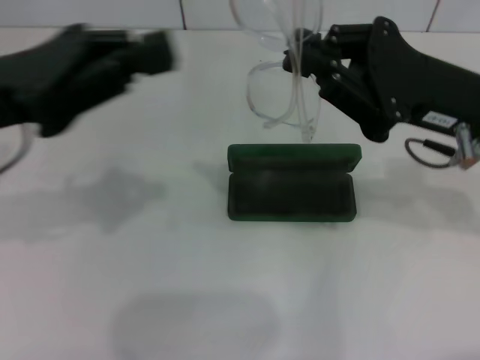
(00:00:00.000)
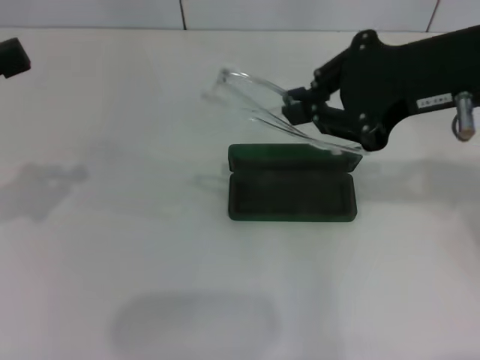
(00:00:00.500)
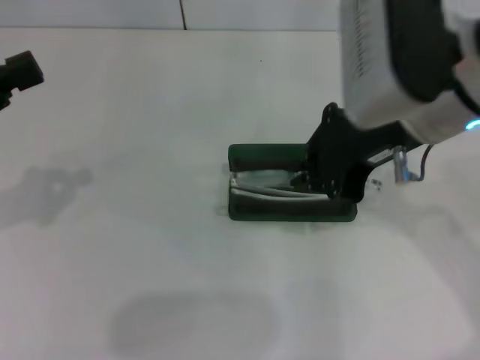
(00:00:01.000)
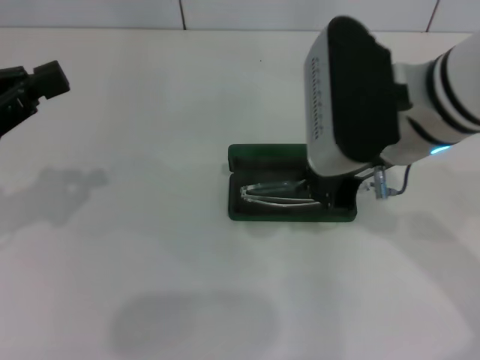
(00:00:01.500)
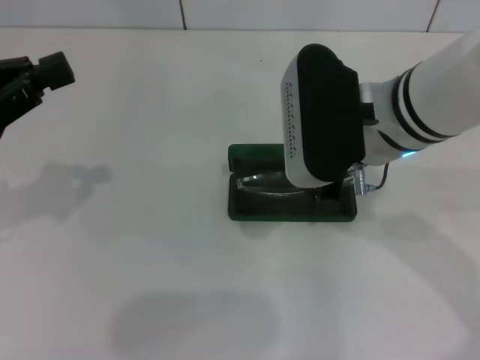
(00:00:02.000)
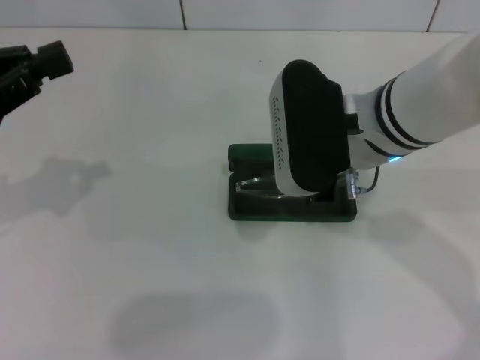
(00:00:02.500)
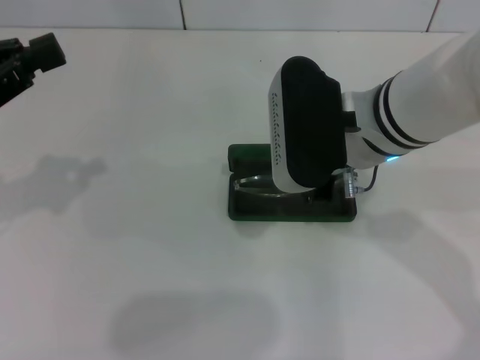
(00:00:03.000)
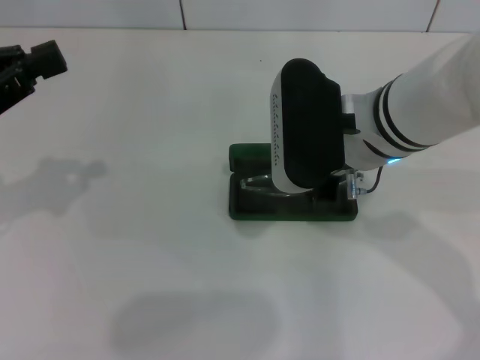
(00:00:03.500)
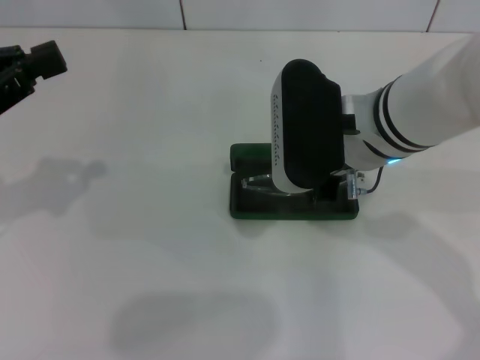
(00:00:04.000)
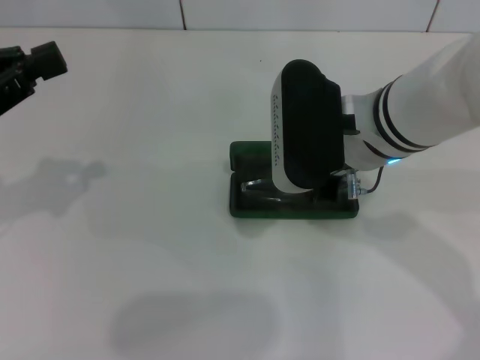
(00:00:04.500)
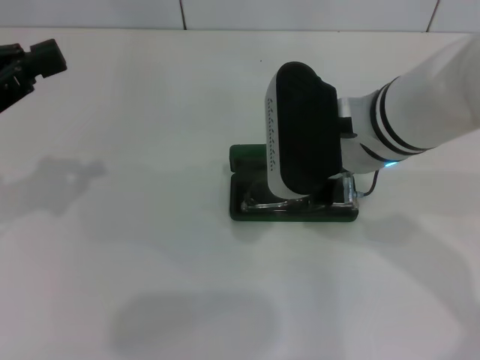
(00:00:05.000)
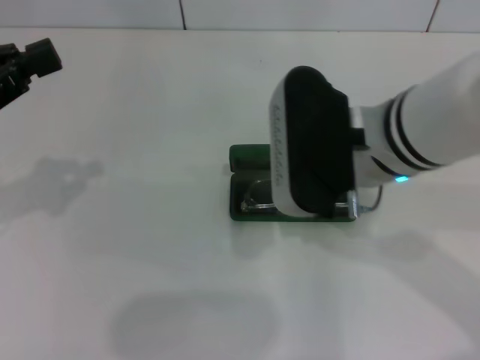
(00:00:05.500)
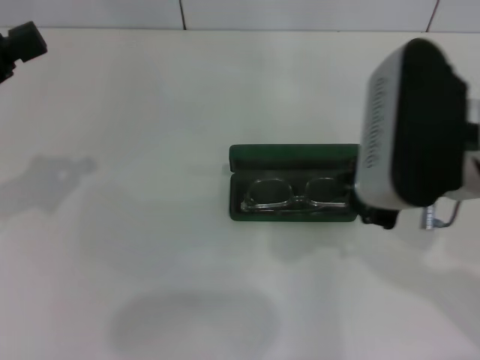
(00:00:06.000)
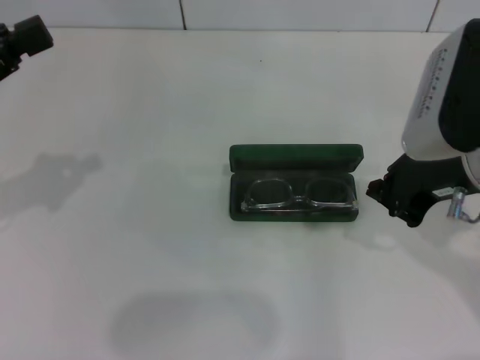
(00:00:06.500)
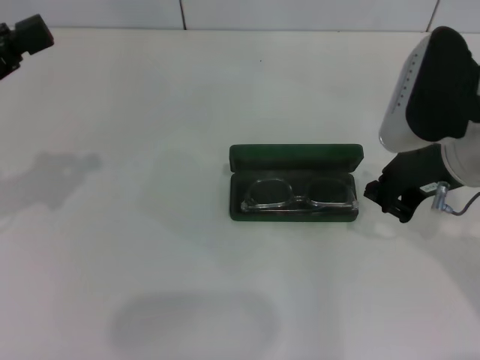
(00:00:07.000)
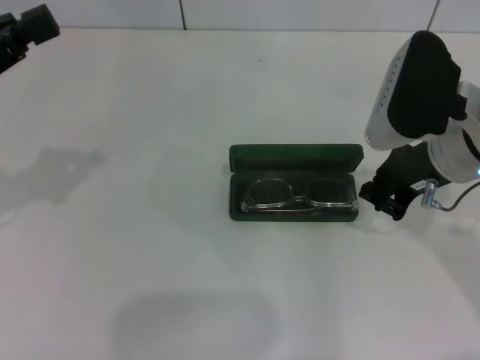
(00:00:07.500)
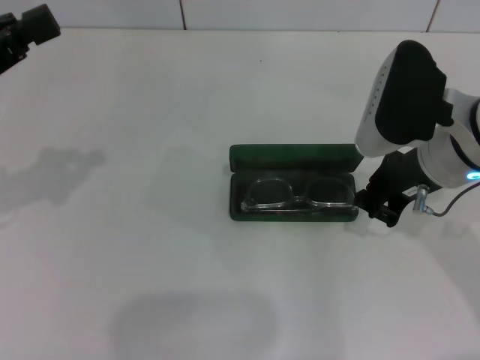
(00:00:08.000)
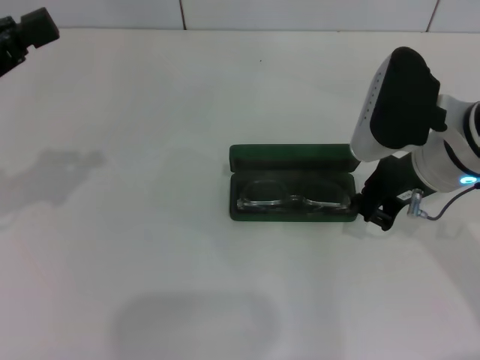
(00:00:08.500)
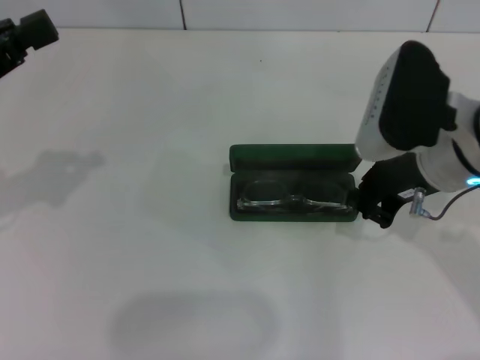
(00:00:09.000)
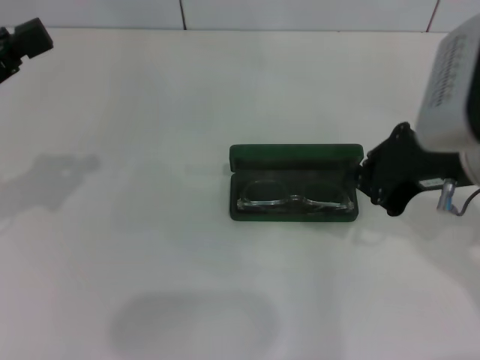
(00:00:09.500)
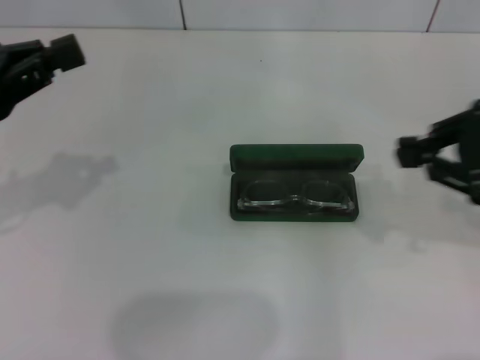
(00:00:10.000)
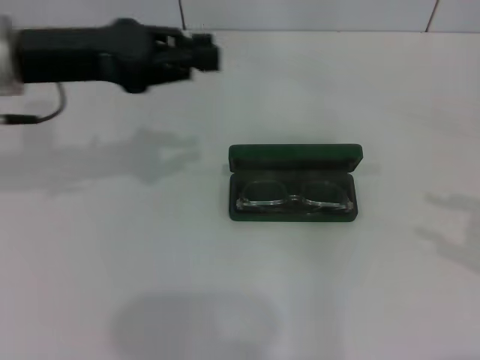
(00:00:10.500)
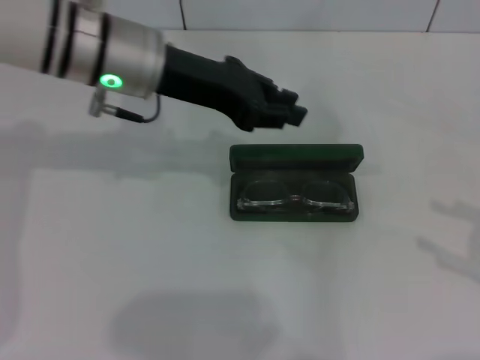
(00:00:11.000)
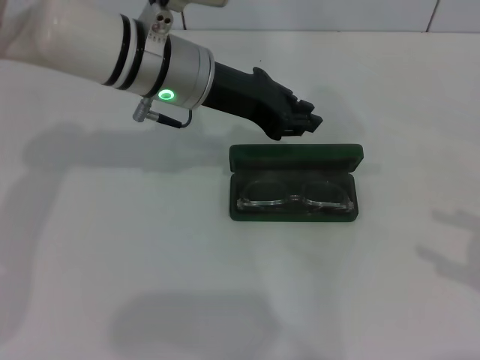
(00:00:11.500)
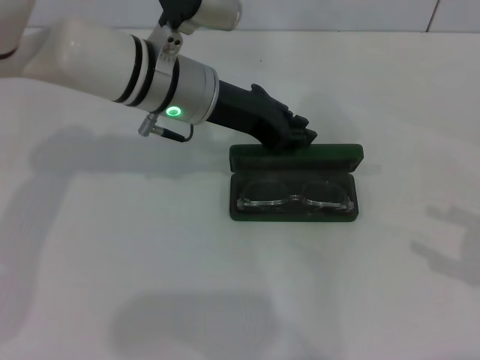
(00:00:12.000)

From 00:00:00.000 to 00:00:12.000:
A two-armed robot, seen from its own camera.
Step, from 00:00:00.000 to 00:00:09.000: Put the glasses into the case with your right hand.
From 00:00:00.000 to 00:00:02.000: Both grippers move to the left, about 10 cm.
From 00:00:02.000 to 00:00:04.000: The grippers stay close to where they were, moving slightly.
From 00:00:04.000 to 00:00:06.000: The right gripper moves backward and to the right, about 10 cm.
From 00:00:06.000 to 00:00:08.000: The right gripper travels forward and downward by roughly 10 cm.
From 00:00:08.000 to 00:00:10.000: The right gripper goes some 15 cm to the right, backward and upward.
From 00:00:10.000 to 00:00:12.000: The right gripper heads to the right, downward and backward, covering roughly 15 cm, and opens its fingers. Meanwhile the left gripper travels to the right and forward by about 25 cm.

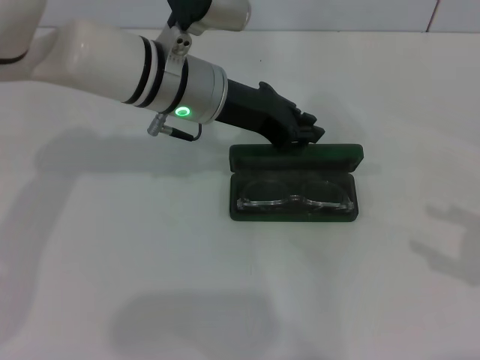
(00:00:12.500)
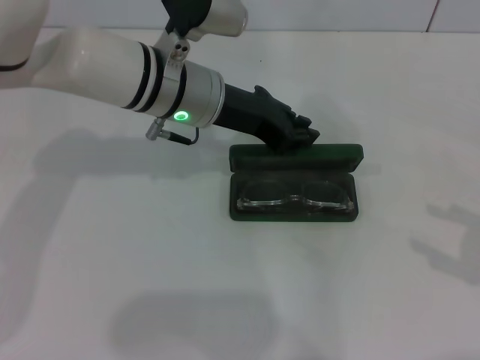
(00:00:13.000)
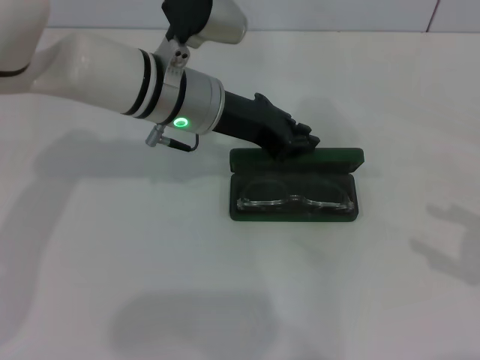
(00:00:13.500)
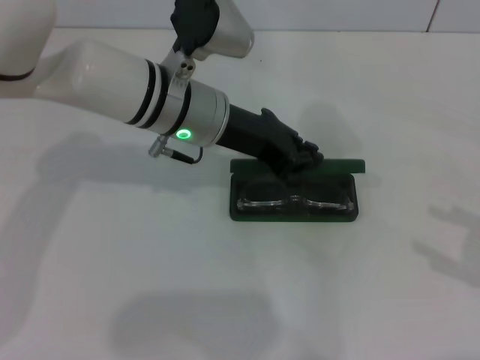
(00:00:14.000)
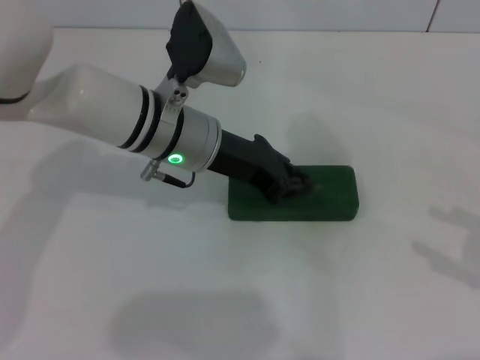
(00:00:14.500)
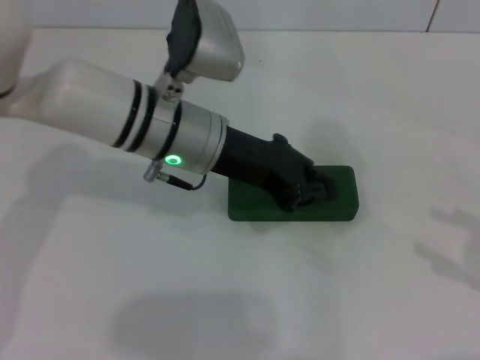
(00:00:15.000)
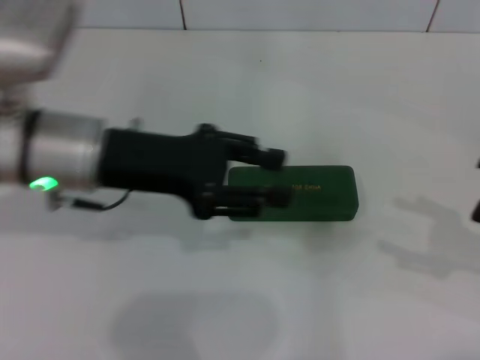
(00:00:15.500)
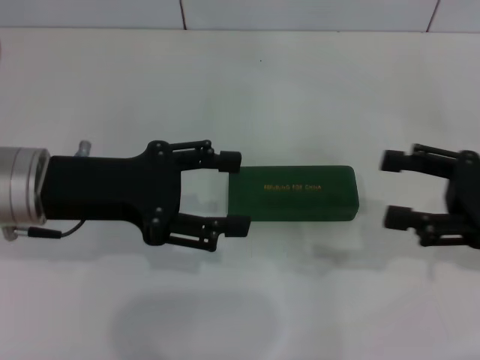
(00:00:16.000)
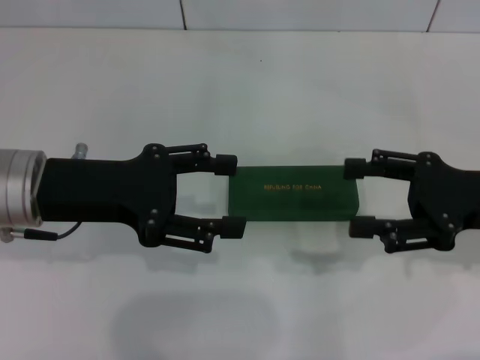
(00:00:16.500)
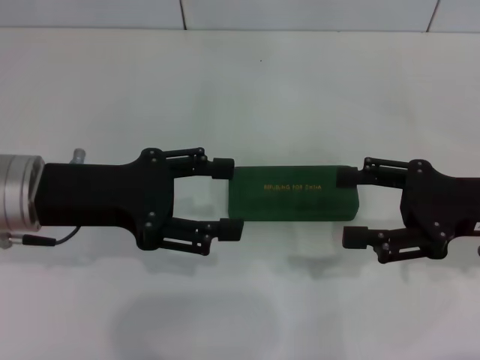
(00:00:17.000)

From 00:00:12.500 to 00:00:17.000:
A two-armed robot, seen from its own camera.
Step, from 00:00:12.500 to 00:00:15.000: Close the glasses case with your left hand.
From 00:00:12.500 to 00:00:14.500: The grippers make only small movements.
From 00:00:14.500 to 00:00:17.000: The right gripper goes roughly 15 cm to the left and forward. Meanwhile the left gripper travels to the left and backward by approximately 15 cm, and opens.

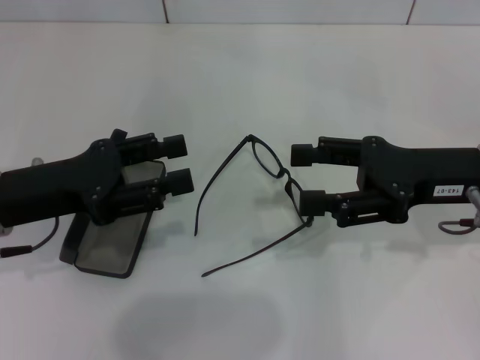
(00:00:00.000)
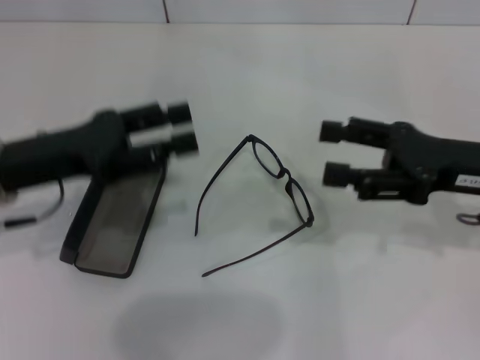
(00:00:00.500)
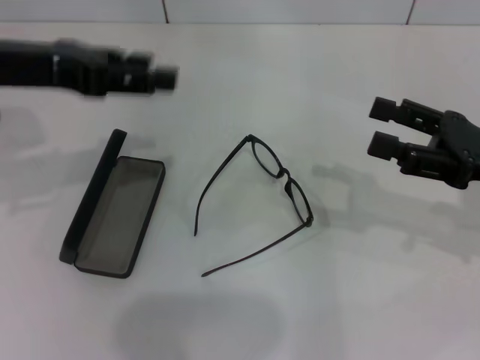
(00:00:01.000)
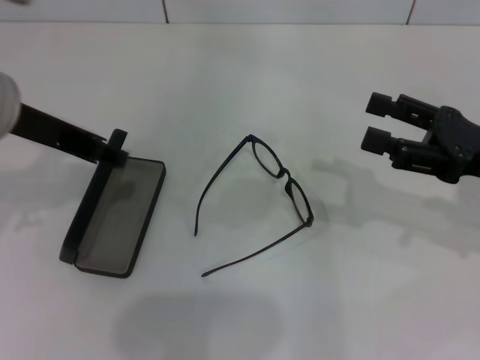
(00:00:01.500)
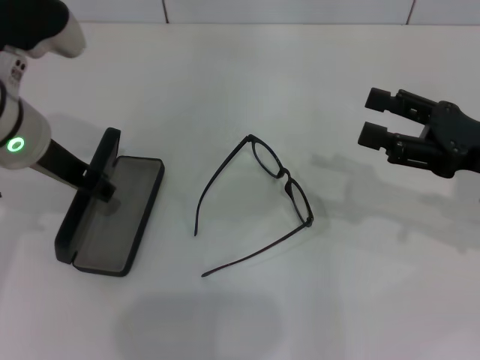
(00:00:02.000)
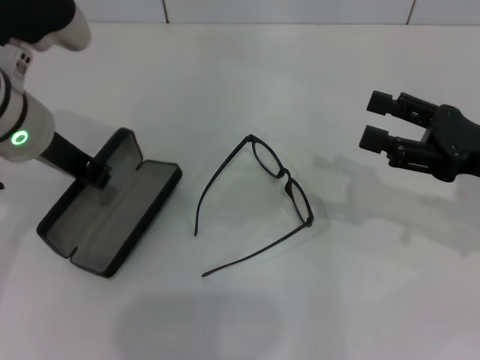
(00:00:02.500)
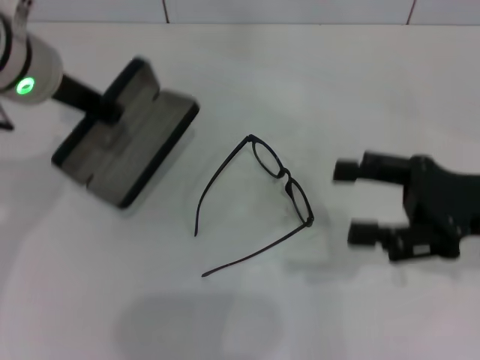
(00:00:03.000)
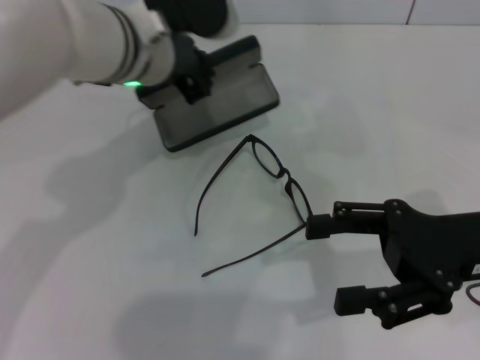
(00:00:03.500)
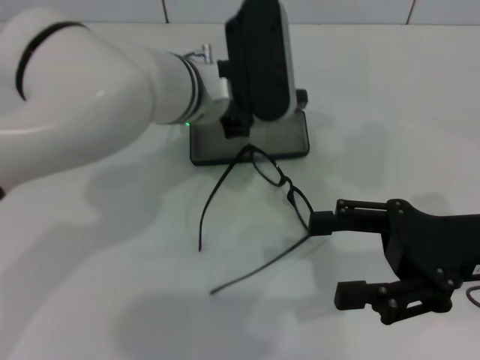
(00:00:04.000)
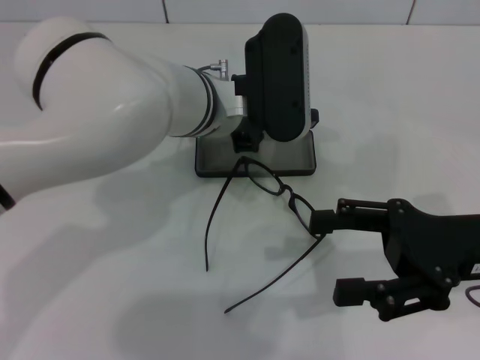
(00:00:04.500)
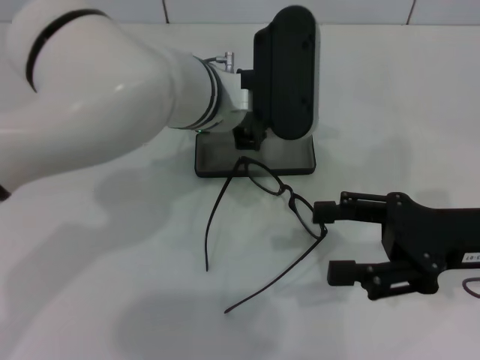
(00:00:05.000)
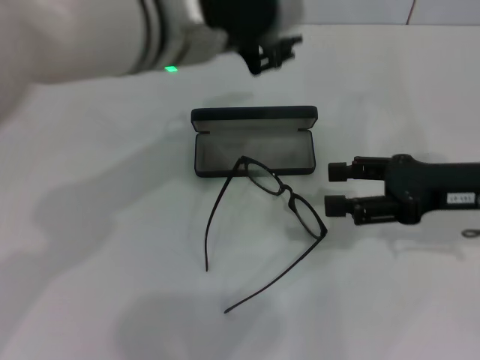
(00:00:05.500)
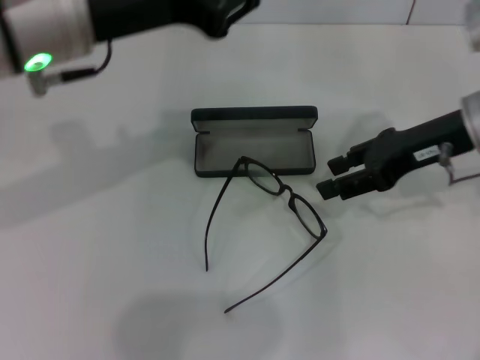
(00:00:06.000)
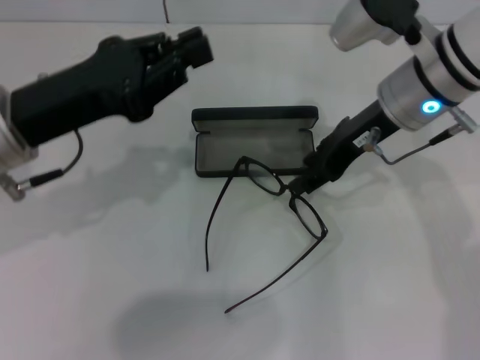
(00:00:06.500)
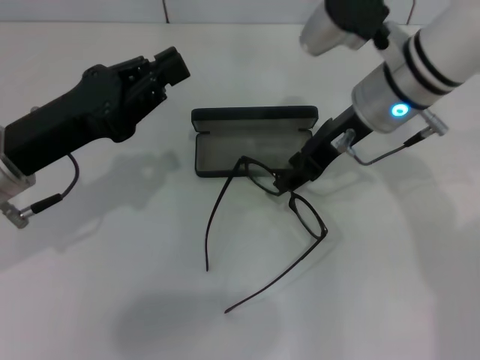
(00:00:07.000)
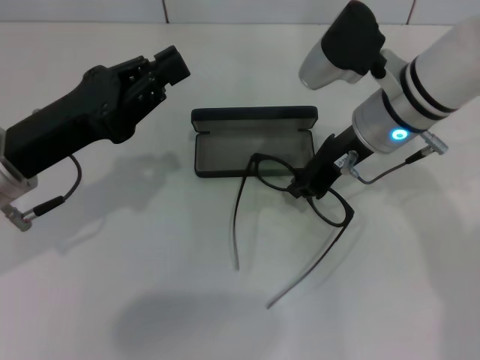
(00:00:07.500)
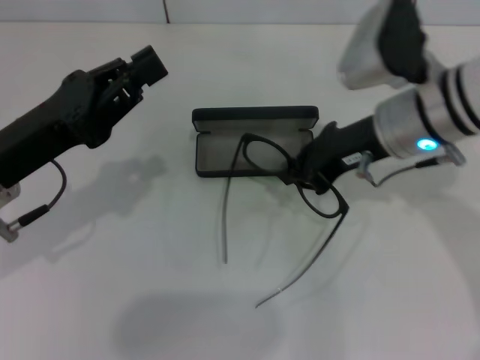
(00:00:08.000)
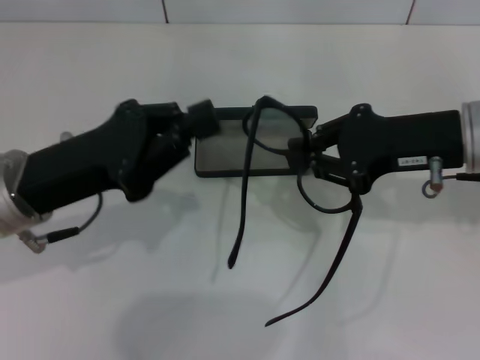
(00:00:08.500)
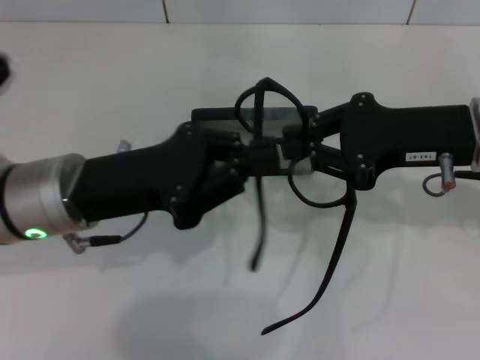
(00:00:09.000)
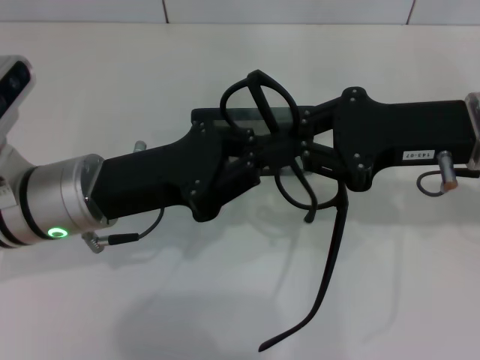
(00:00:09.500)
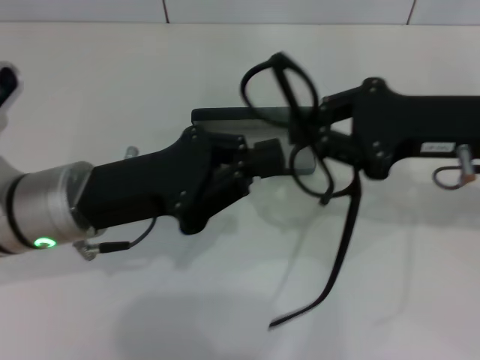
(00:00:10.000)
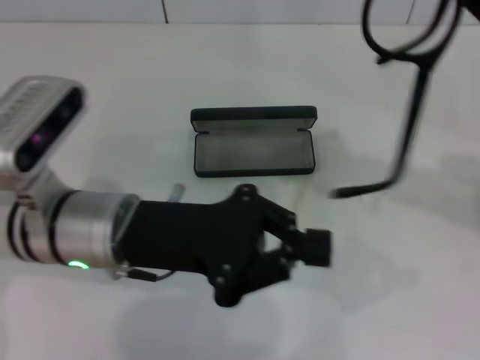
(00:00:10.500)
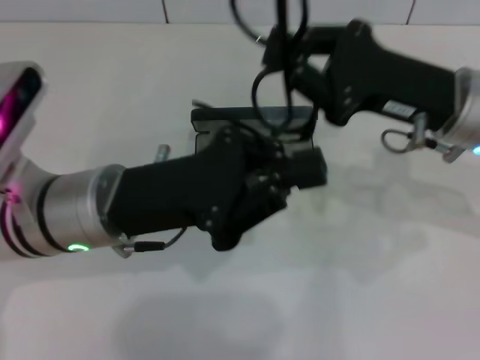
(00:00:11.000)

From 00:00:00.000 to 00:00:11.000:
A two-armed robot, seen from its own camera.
Step, from 00:00:00.000 to 00:00:02.000: Grab the glasses case with your left hand.
Step, from 00:00:02.500 to 00:00:04.500: Place the glasses case in the center of the table with your left hand.
Step, from 00:00:05.000 to 00:00:07.000: Grab the eyeglass frame with your right hand.
From 00:00:00.000 to 00:00:02.000: The right gripper travels to the right by about 5 cm. Meanwhile the left gripper is displaced upward, forward and to the right by roughly 10 cm.
From 00:00:02.000 to 00:00:03.500: The left gripper travels to the right and forward by about 10 cm, and closes. Meanwhile the right gripper shifts by some 5 cm.
From 00:00:03.500 to 00:00:05.500: The right gripper shifts by about 5 cm. The left gripper travels upward by about 5 cm, and opens its fingers.
From 00:00:05.500 to 00:00:07.500: The left gripper travels to the left, downward and backward by approximately 20 cm, and closes; the right gripper goes about 15 cm to the left and forward, and closes its fingers.
From 00:00:07.500 to 00:00:09.000: The right gripper travels to the right and backward by about 10 cm.